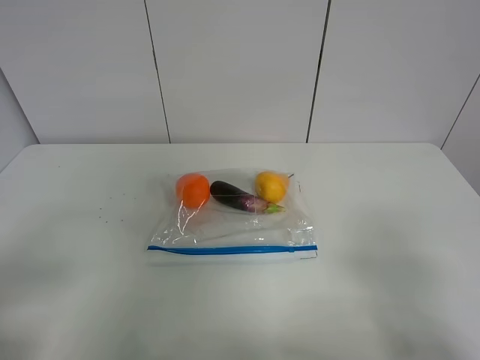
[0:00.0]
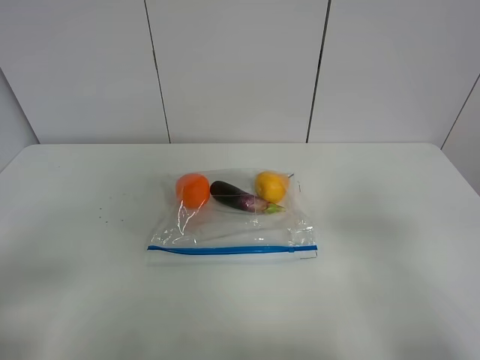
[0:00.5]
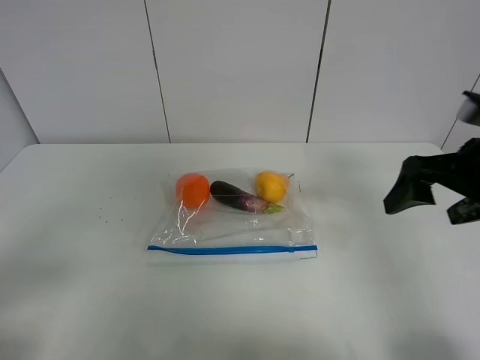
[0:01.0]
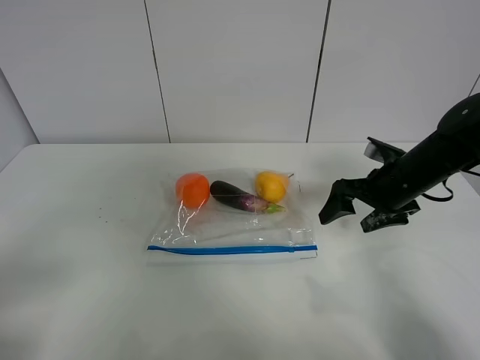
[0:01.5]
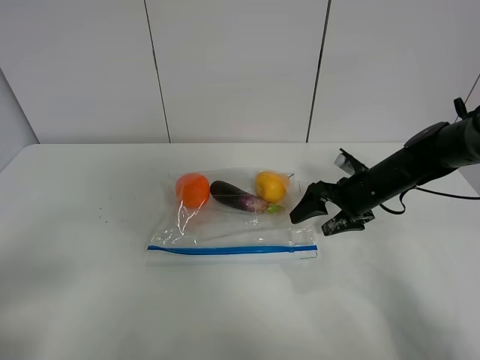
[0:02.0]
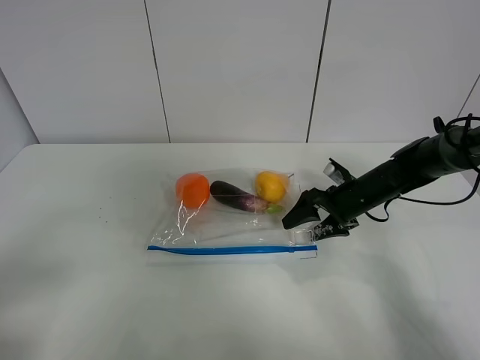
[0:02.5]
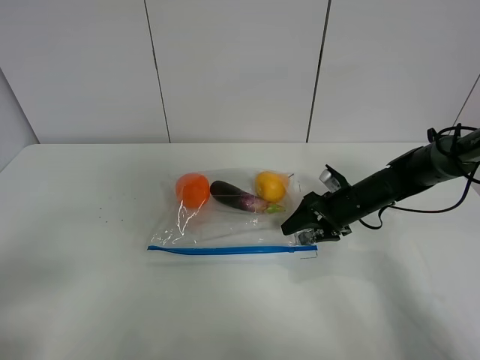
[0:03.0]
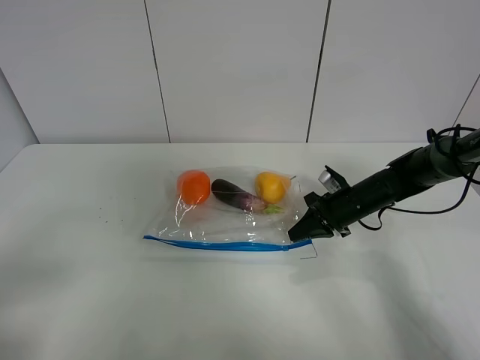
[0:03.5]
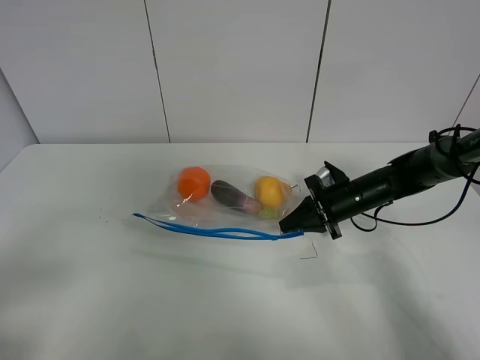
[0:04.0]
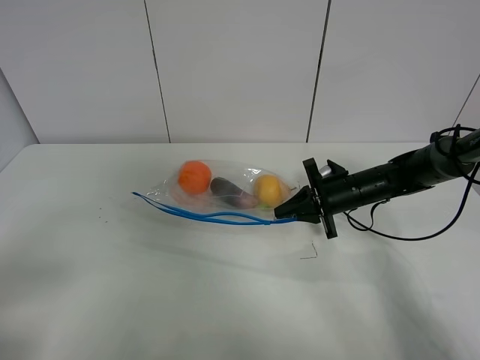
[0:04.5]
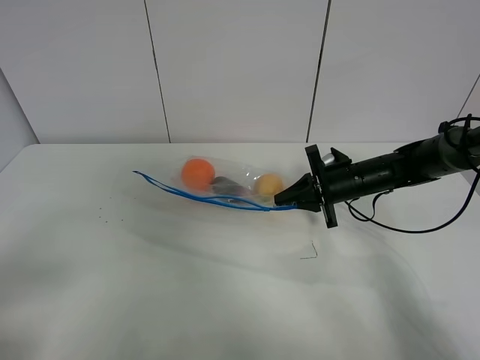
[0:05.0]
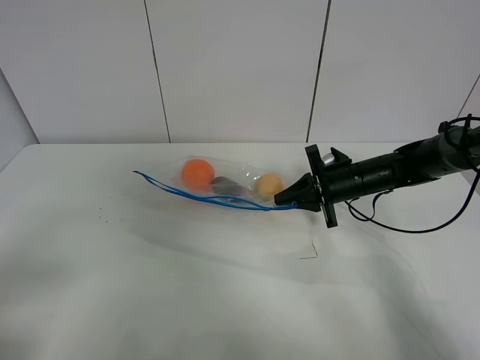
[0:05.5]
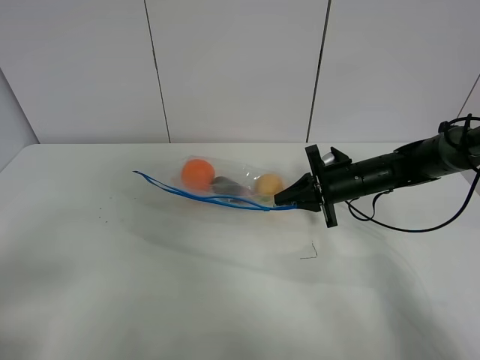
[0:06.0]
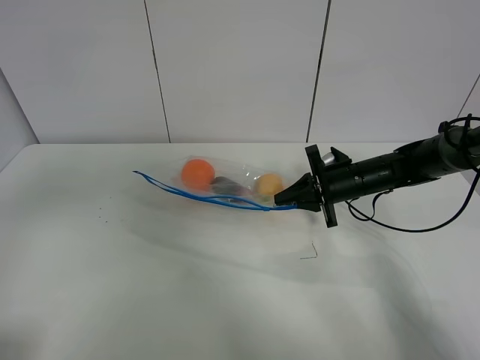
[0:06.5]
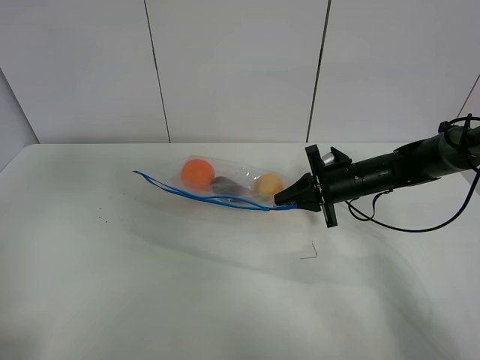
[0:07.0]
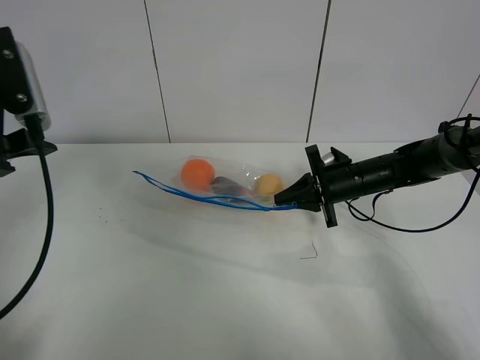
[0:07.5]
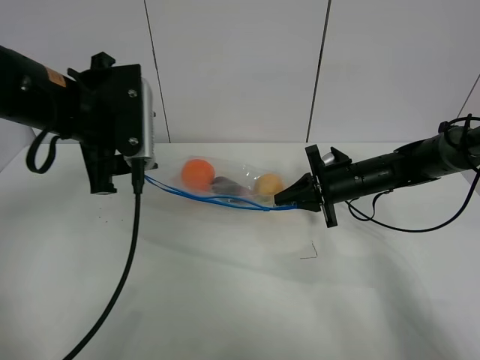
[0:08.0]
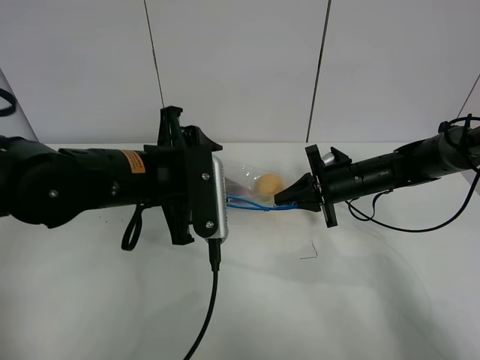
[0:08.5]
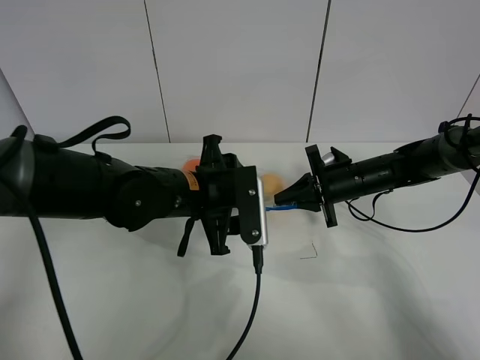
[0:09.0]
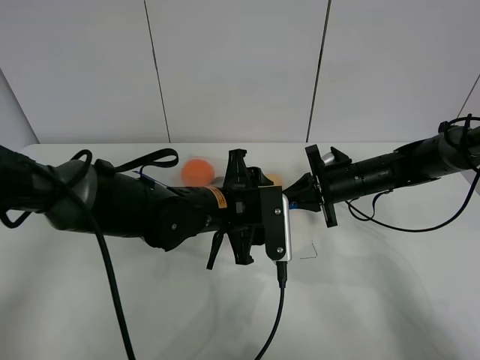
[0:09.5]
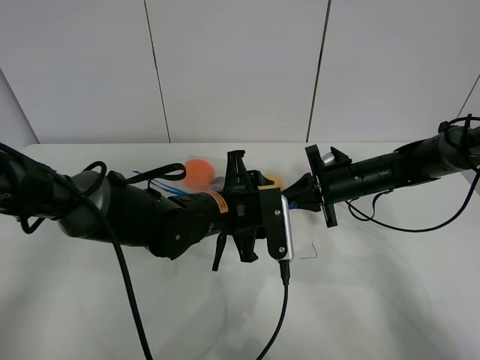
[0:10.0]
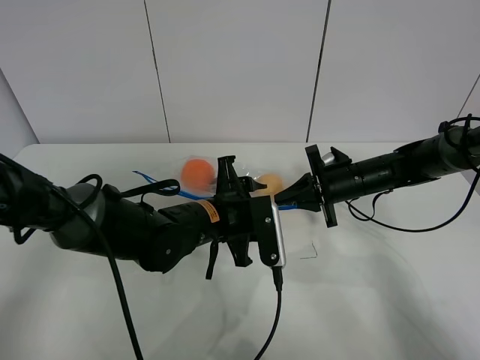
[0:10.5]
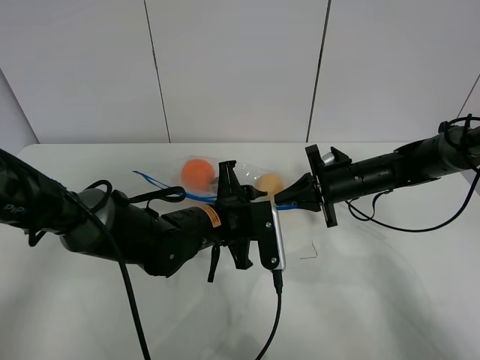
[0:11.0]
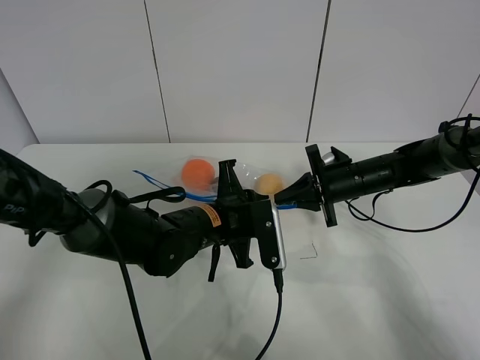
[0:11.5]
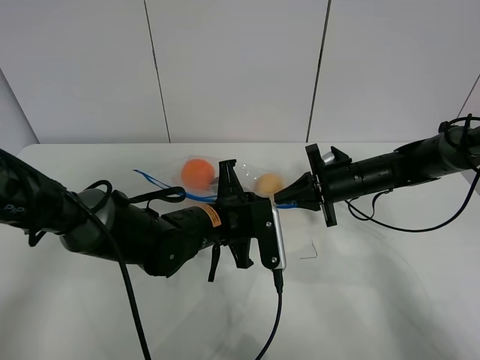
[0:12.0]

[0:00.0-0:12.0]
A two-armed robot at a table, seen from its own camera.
Step, 0.0 to 3.0 s: Grasp the fruit bag with right gripper.
Step, 3.5 to 5.0 s: Lift the fruit bag with your right gripper.
0.0 to 2.0 s: The right gripper is displaced forward and downward by some 40 cm.
2.0 to 4.0 s: The right gripper closes its fingers.
4.0 to 6.0 s: There are only small adjustments of the grippers.
6.0 to 8.0 s: The left gripper travels forward and to the right by roughly 30 cm.
8.0 to 10.0 s: The left gripper shifts approximately 20 cm downward and to the right.
10.0 to 12.0 s: The left gripper closes its fingers.

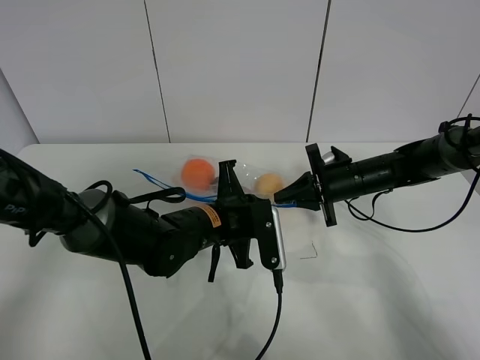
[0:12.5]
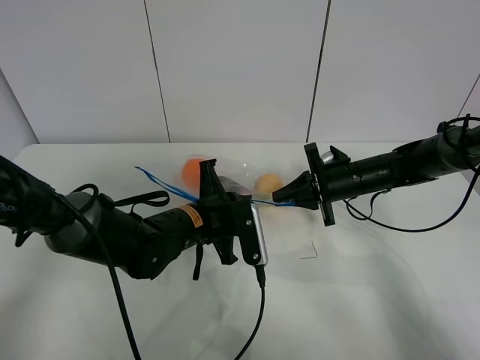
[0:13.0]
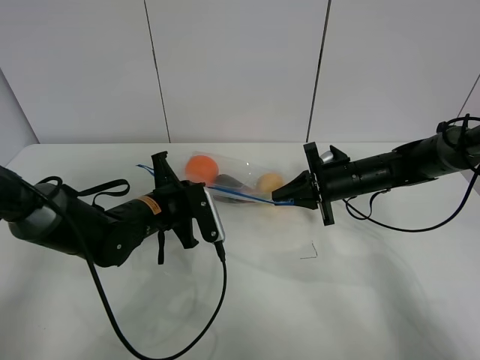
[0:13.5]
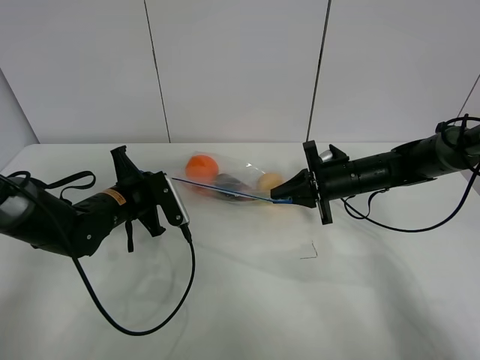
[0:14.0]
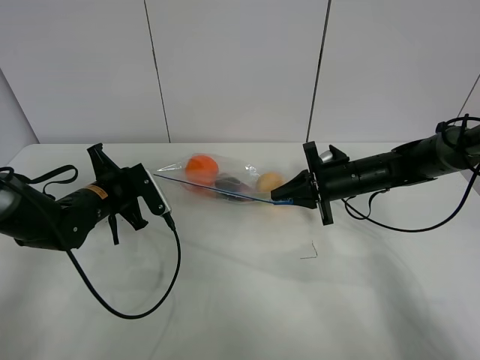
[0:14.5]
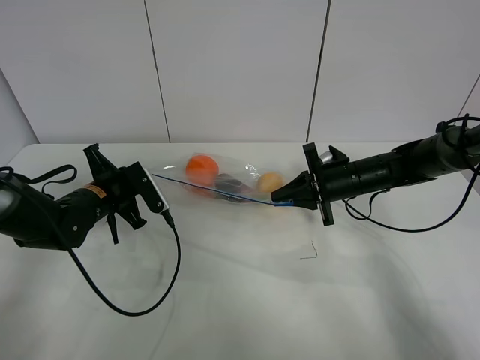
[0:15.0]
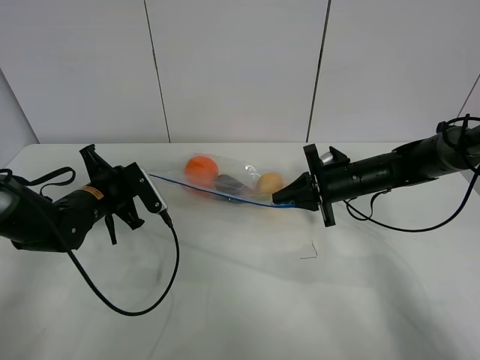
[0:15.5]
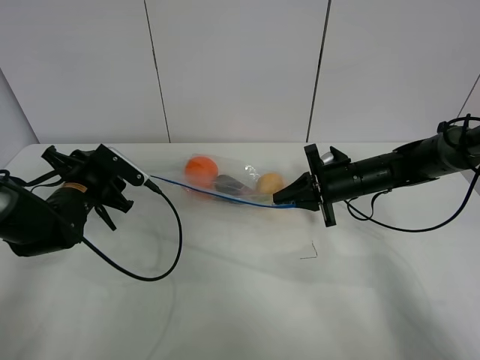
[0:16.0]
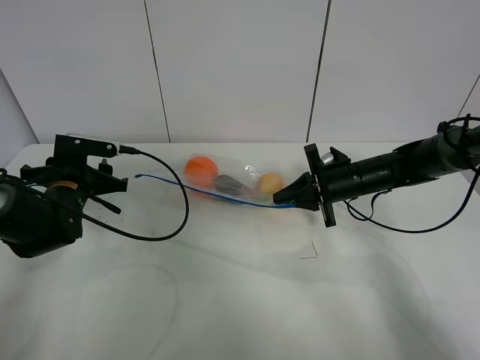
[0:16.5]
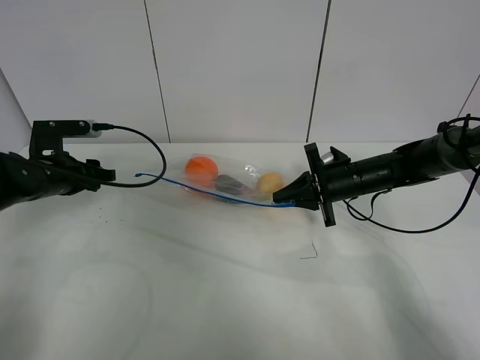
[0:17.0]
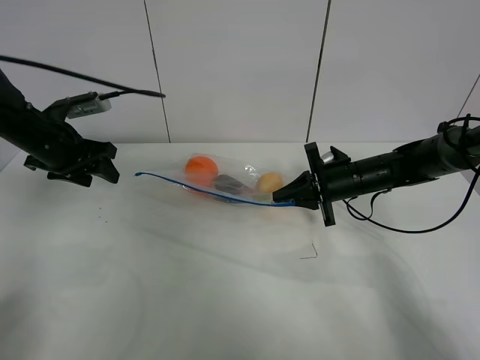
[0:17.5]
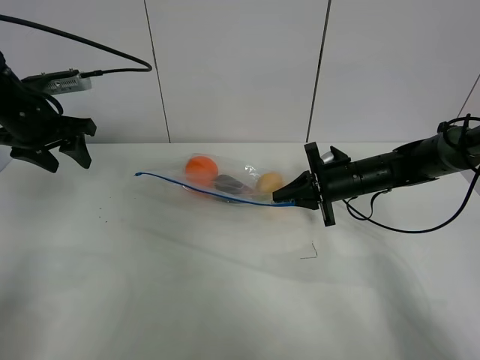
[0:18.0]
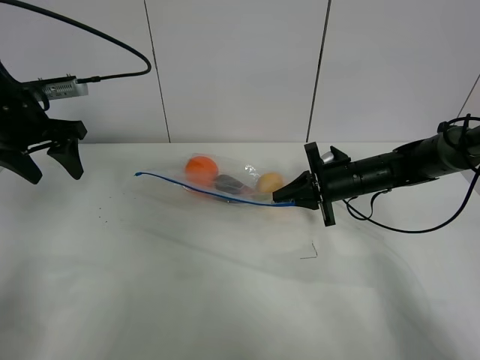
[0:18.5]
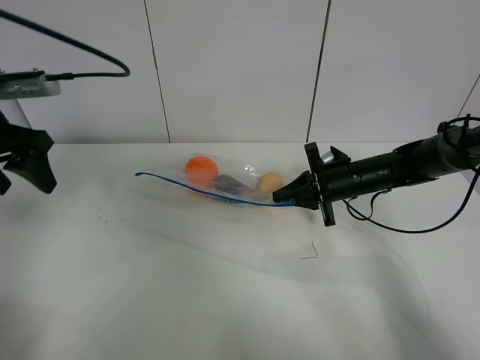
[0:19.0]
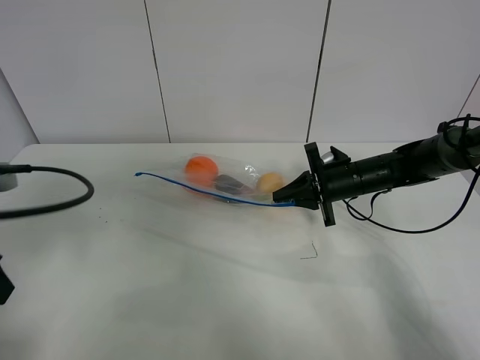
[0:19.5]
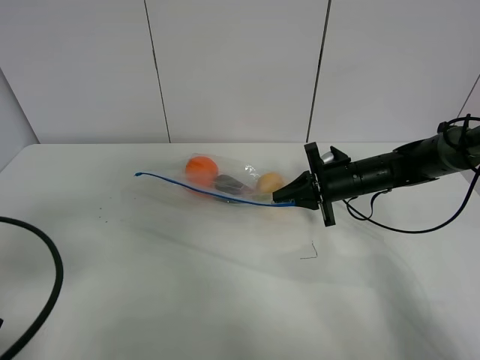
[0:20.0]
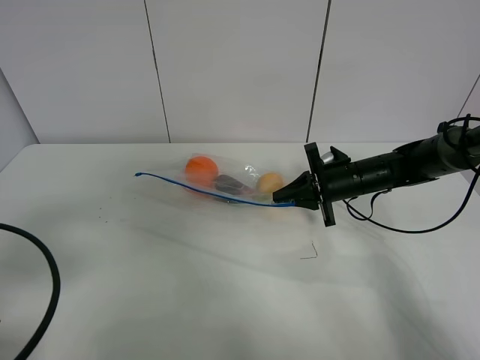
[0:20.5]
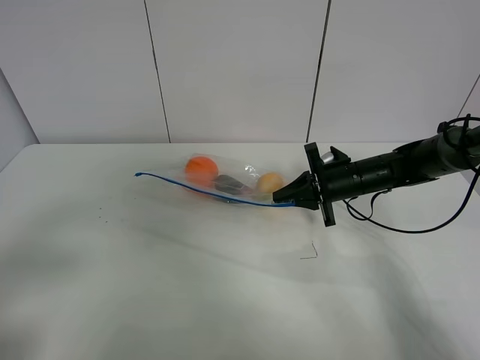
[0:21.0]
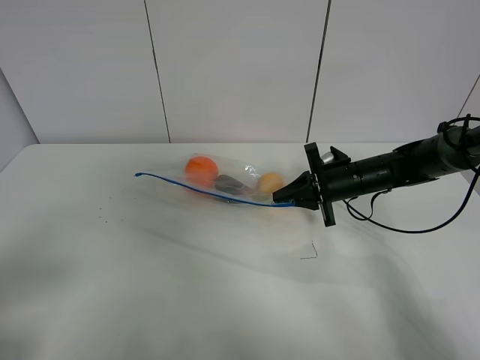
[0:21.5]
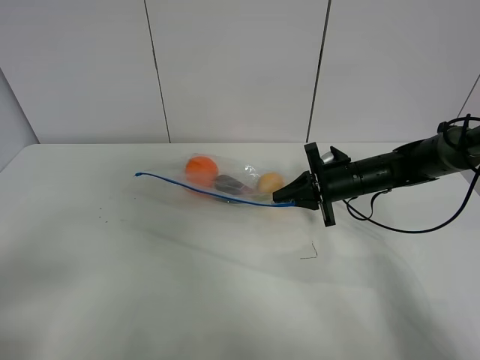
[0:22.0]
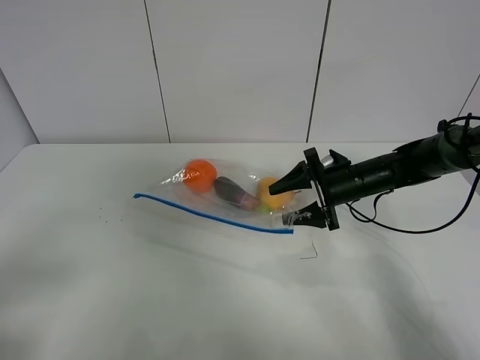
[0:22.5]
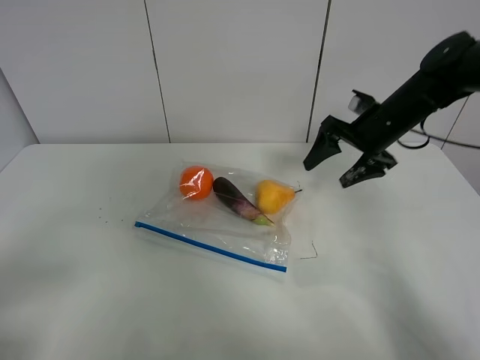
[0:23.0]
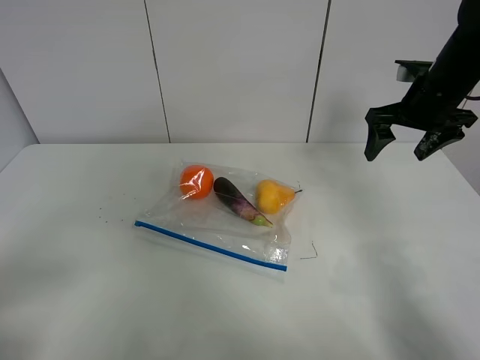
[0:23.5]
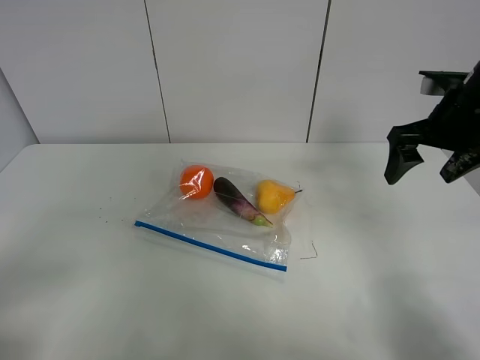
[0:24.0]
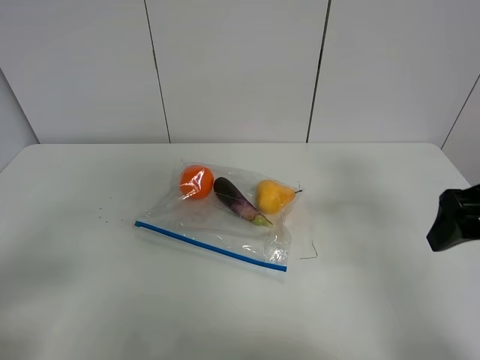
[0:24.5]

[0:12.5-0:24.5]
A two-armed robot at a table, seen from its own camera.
Step, 12.5 to 15.5 s: Pull the fruit bag with left gripper.
12.5 to 14.5 s: The left gripper moves to the left, approximately 20 cm.
14.5 to 16.5 s: The left gripper opens its fingers.
16.5 to 18.5 s: The left gripper is displaced upward by some 15 cm.
18.5 to 20.5 s: The left gripper is displaced backward by approximately 25 cm.
20.5 to 22.5 s: The left gripper heads backward, covering about 10 cm. The right gripper opens its fingers.
22.5 to 24.5 s: The right gripper travels backward, upward and to the right by some 25 cm.

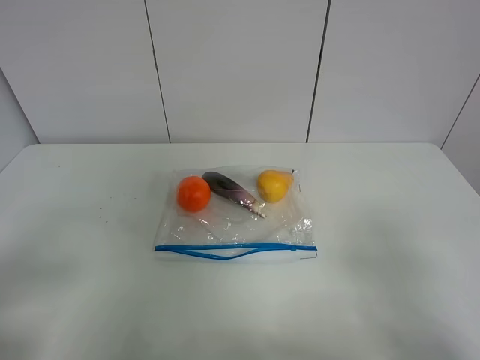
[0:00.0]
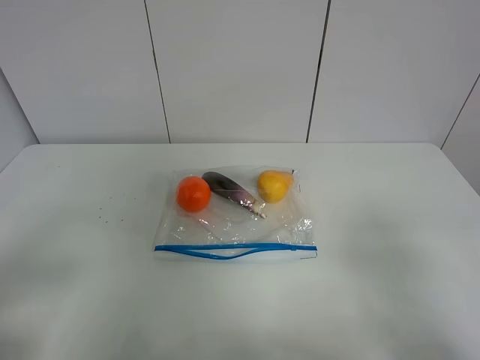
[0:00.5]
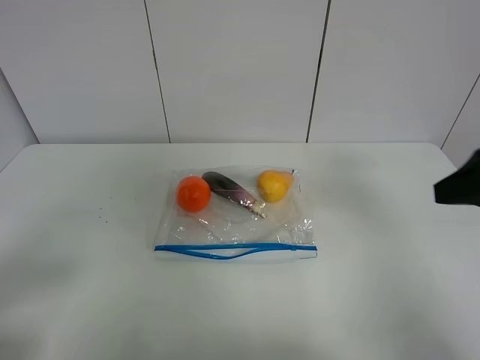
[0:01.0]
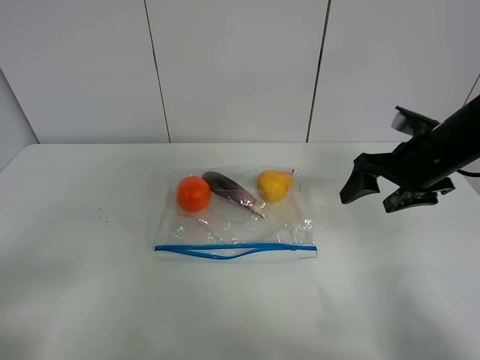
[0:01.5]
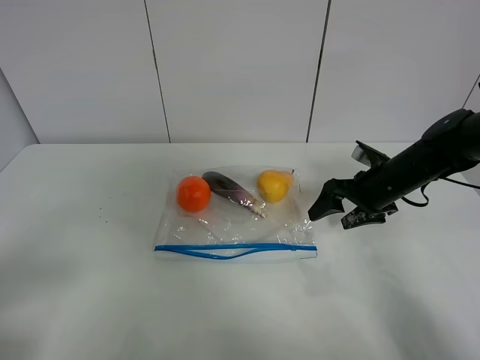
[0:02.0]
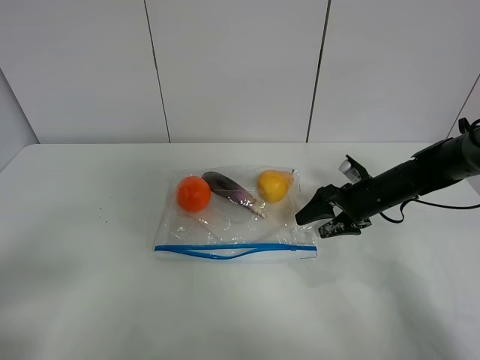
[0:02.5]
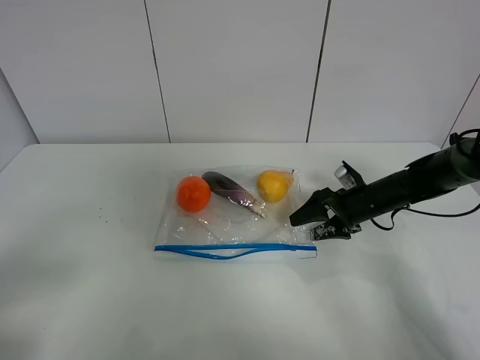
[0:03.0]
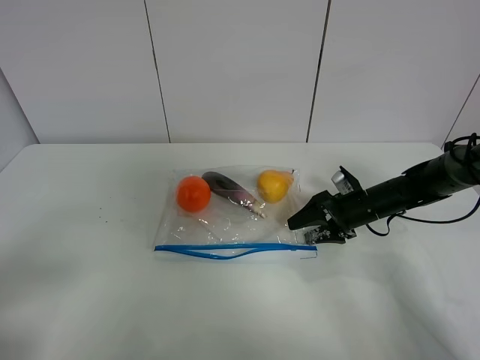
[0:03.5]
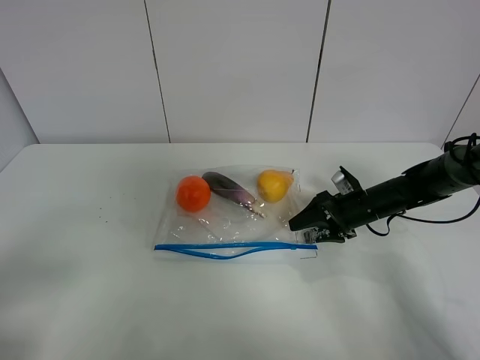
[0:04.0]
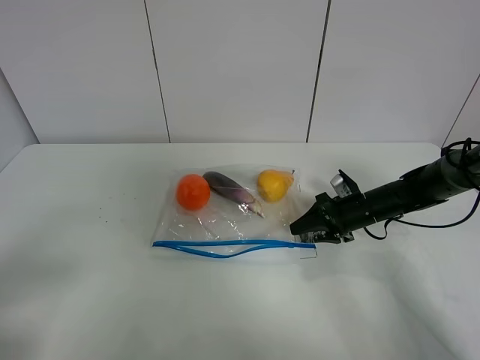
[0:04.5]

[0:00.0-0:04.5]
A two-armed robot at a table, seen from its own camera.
0.0 to 2.0 s: The right gripper travels forward by some 35 cm.
2.0 to 4.5 s: The right gripper moves downward, about 10 cm, and closes.
